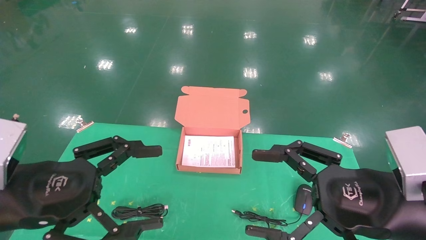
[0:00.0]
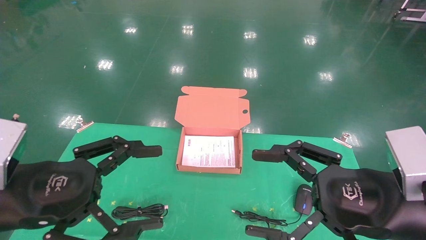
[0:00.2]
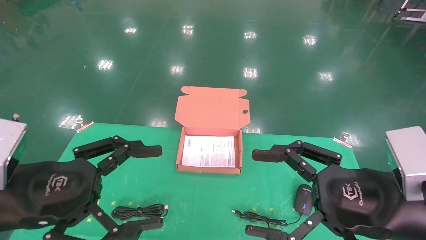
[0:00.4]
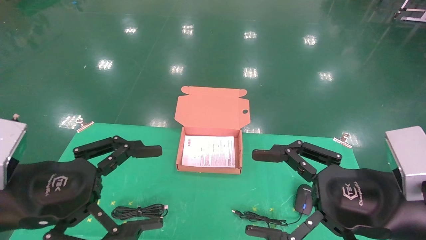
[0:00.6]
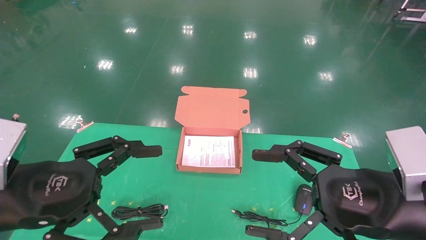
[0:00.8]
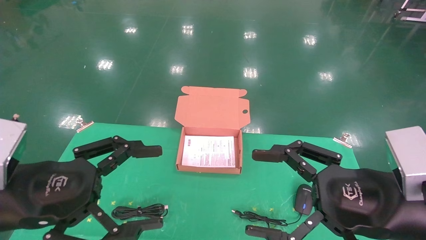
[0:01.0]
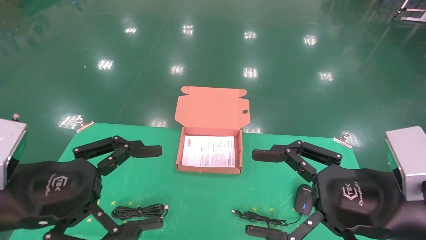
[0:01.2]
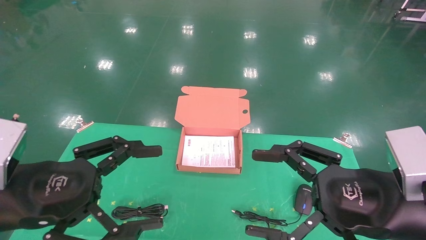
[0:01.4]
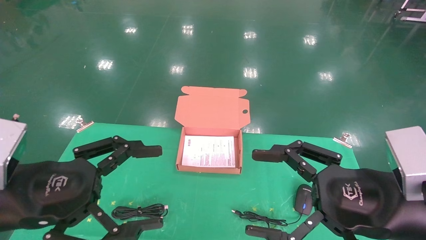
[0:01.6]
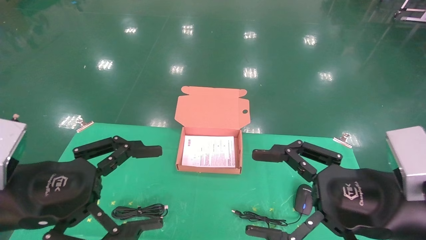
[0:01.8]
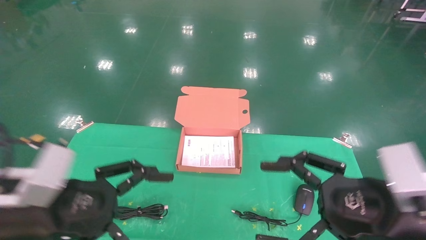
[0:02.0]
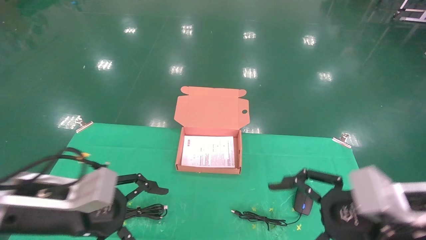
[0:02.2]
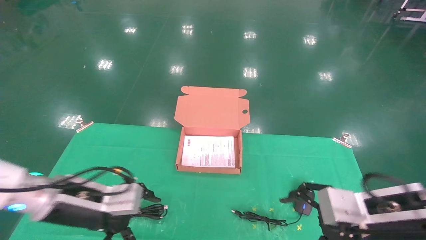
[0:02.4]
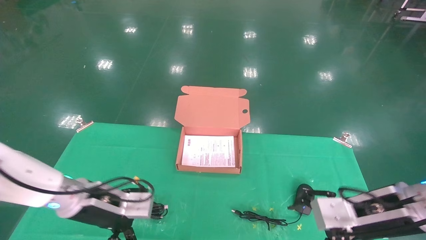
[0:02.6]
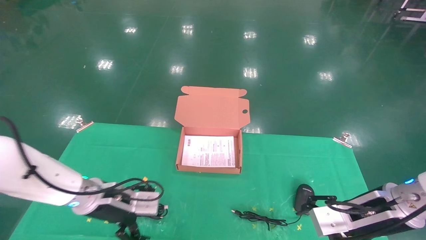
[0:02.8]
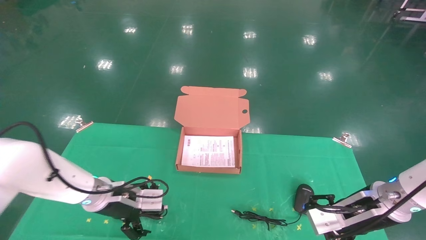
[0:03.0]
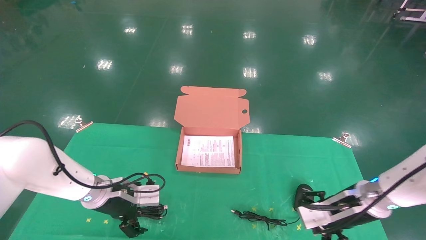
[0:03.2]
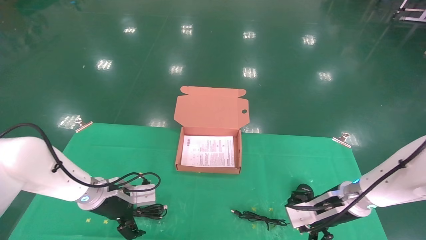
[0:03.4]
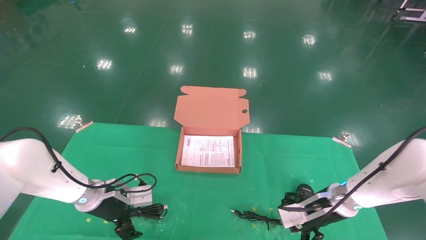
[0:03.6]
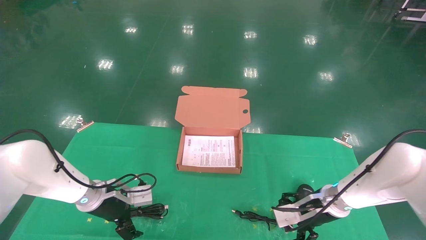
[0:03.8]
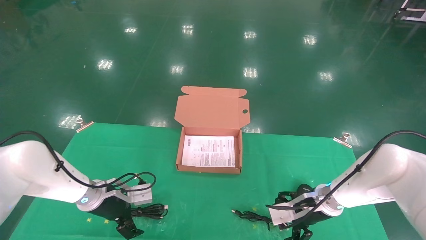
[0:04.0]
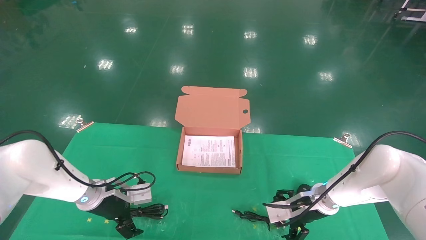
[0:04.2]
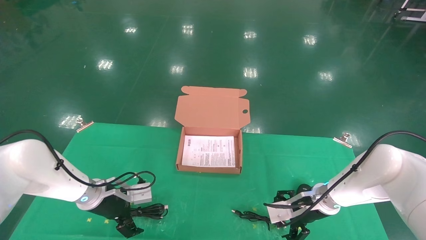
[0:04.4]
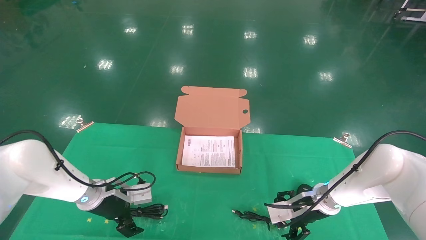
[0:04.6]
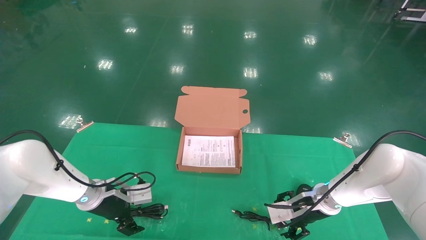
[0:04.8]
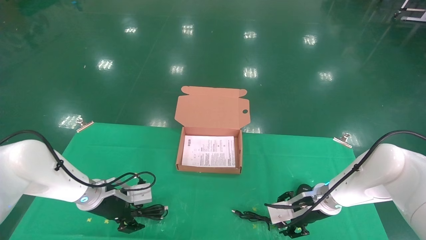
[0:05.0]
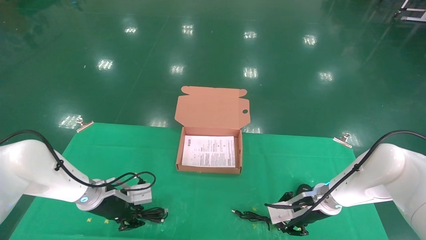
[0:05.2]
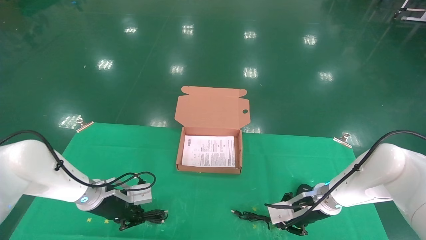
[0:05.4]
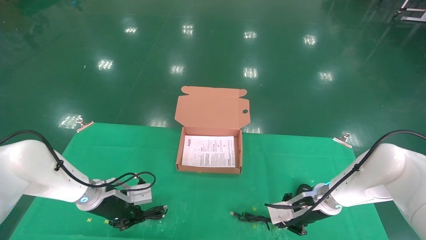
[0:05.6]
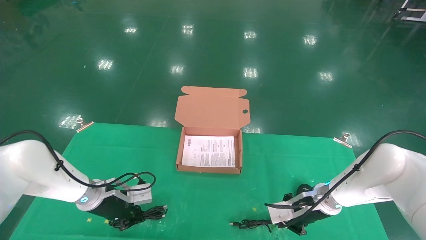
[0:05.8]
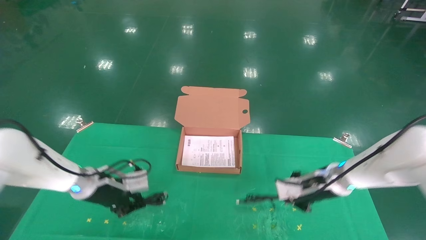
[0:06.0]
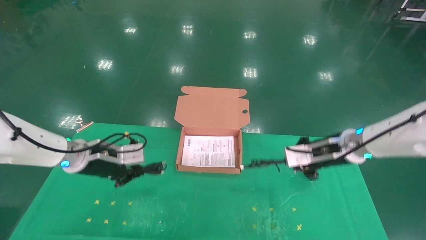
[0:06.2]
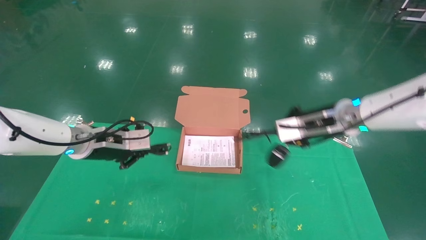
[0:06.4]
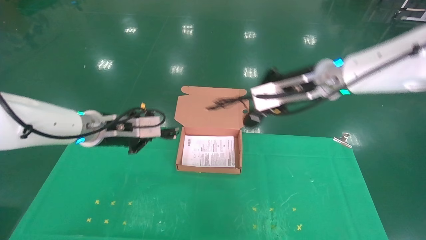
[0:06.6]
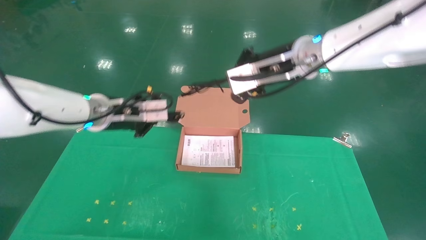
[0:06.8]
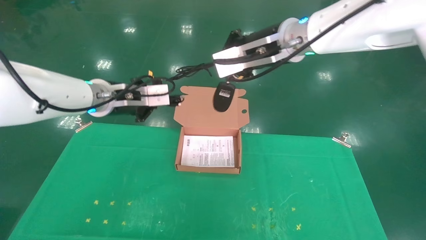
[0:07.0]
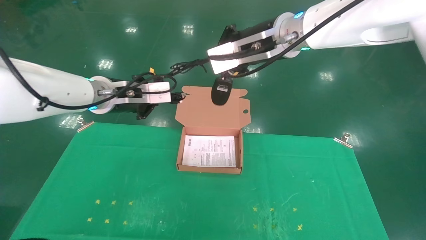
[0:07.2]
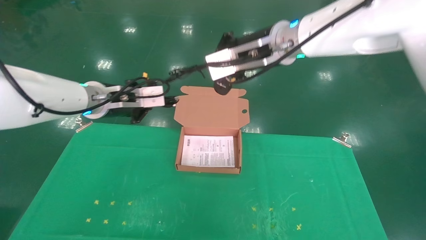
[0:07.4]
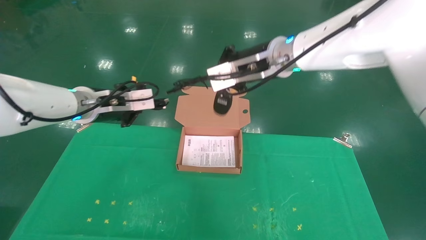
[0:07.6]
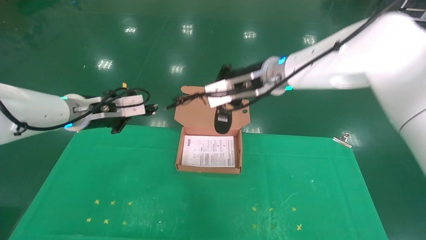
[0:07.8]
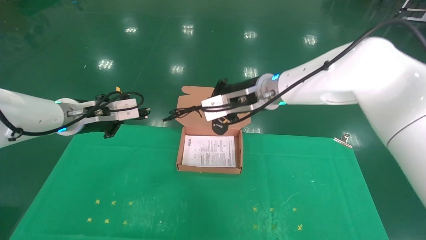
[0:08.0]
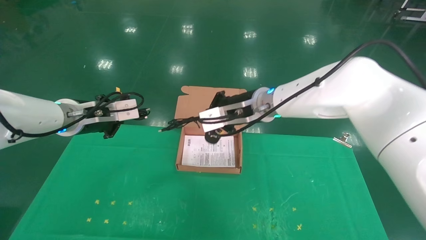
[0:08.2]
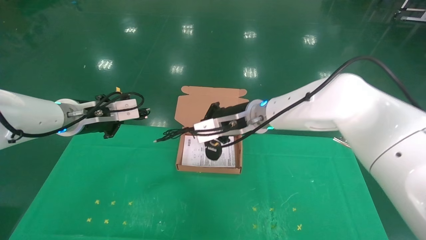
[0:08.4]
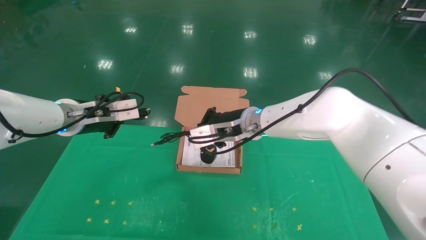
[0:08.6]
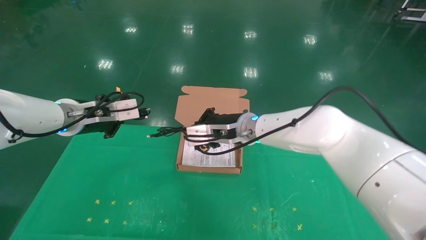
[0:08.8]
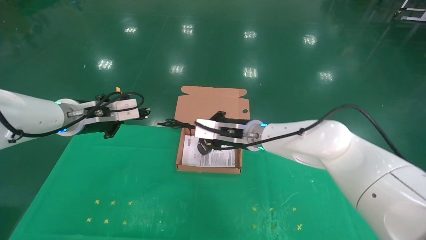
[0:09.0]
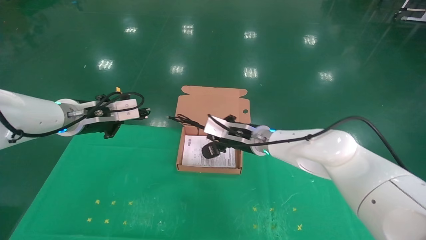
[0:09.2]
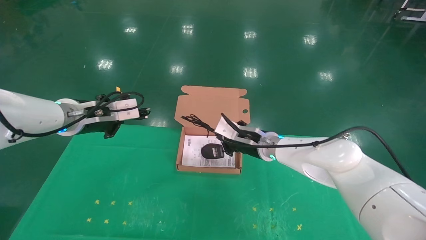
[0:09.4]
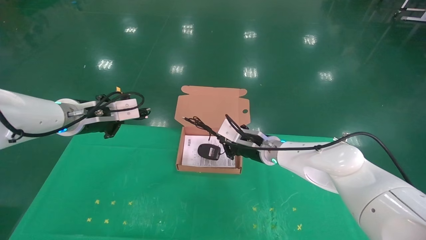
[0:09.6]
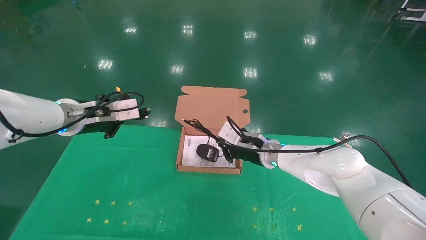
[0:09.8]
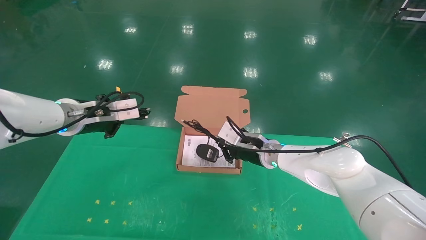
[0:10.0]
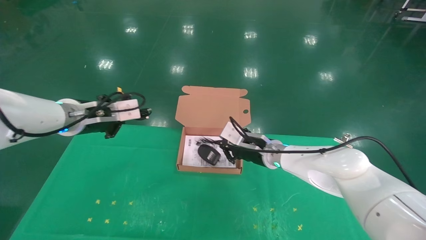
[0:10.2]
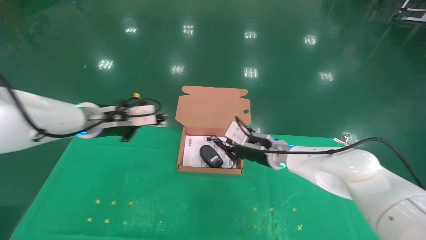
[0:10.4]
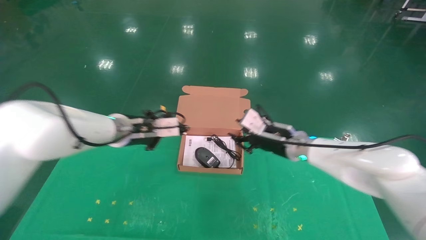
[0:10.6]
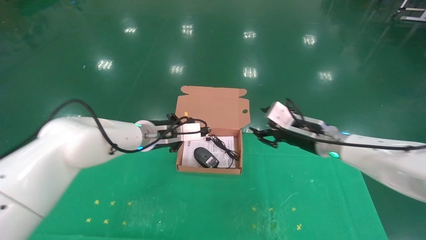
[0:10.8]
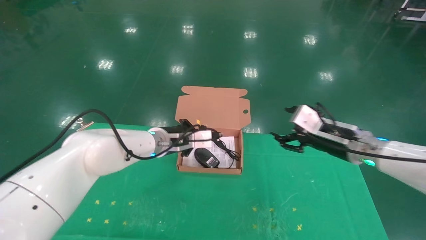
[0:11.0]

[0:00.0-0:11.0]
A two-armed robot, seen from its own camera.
Task of the whole recording: grasp data cable left put into box grasp mouse right put into box.
Step, 0:01.0 to 0:06.4: Grab and pick up both the mouse and power cord from the accessory packaging area at the same time.
0:00.0 to 0:01.6: Both grippers stay put.
0:01.6 to 0:03.2: The grippers both shift forward and downward by some 25 cm.
0:03.2 to 0:04.8: The right gripper goes some 5 cm forward.
0:04.8 to 0:06.2: Both grippers travel together upward, approximately 10 cm. The right gripper closes its fingers. The left gripper closes its fingers.
0:06.2 to 0:07.8: The left gripper travels upward by some 10 cm; the right gripper shifts about 20 cm to the left and upward.
0:07.8 to 0:09.4: The right gripper goes approximately 15 cm downward.
0:09.4 to 0:11.0: The left gripper moves to the right, downward and forward, approximately 20 cm. The right gripper is displaced to the right and backward by roughly 20 cm, and opens.

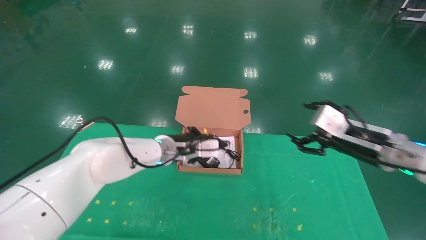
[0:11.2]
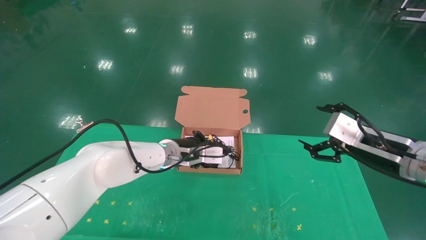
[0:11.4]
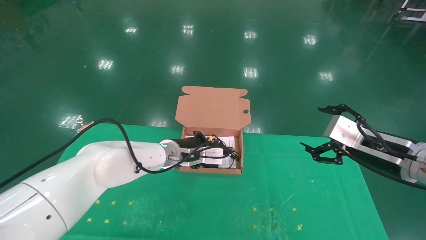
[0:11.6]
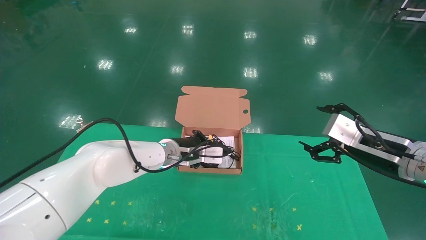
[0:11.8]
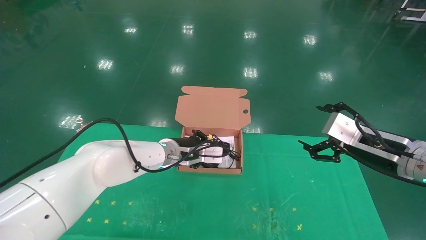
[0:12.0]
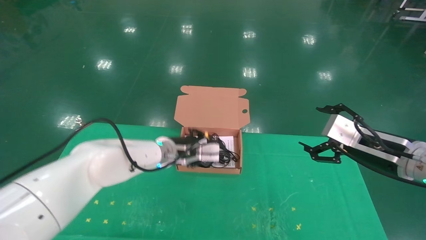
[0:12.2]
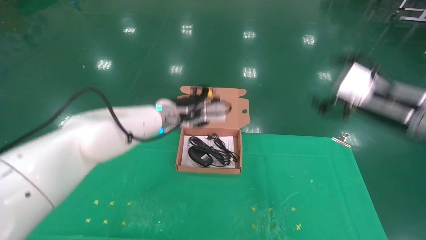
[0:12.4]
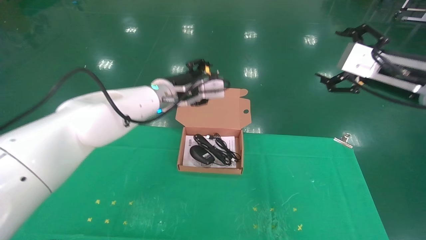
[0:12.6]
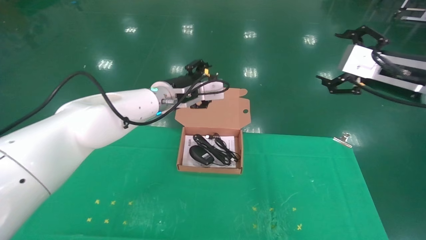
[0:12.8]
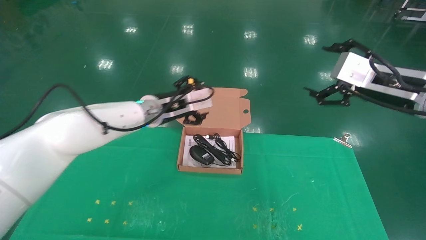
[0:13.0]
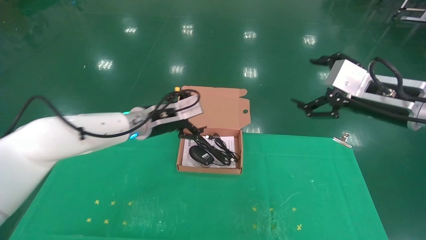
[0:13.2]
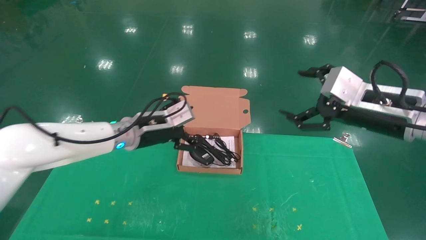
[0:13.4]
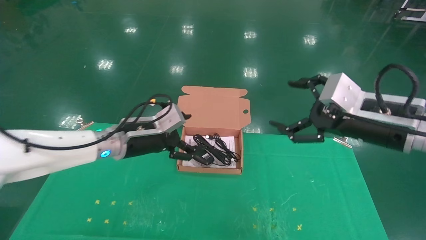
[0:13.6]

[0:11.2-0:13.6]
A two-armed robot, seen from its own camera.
Task of the whole recording: grasp data cable left put into box grasp mouse right put into box.
0:11.2 to 0:12.4: Both grippers move upward, roughly 10 cm. The left gripper opens up.
0:12.4 to 0:13.6: The right gripper ends up approximately 5 cm from where it was. The left gripper moves to the left, backward and downward, about 10 cm, and opens up.

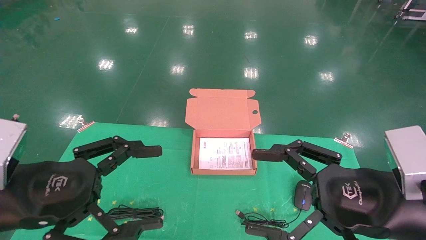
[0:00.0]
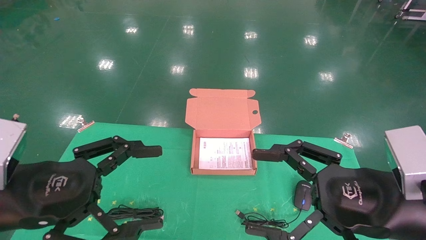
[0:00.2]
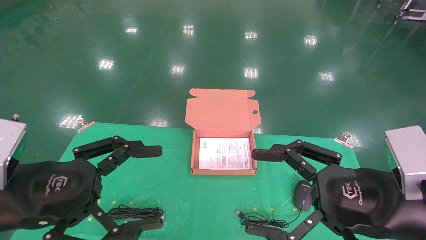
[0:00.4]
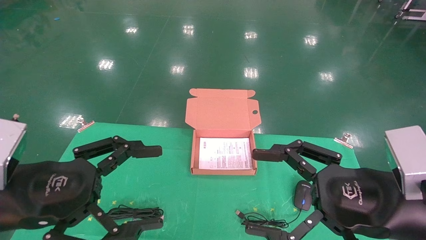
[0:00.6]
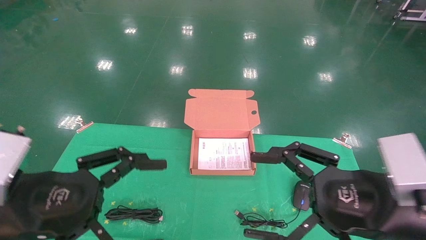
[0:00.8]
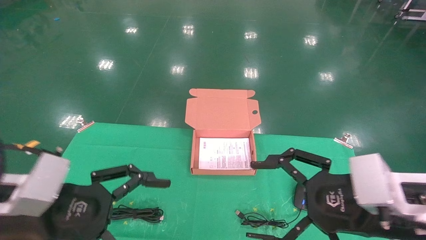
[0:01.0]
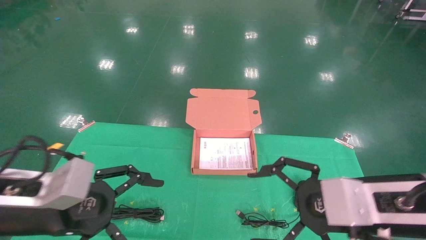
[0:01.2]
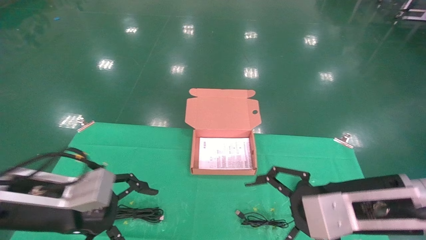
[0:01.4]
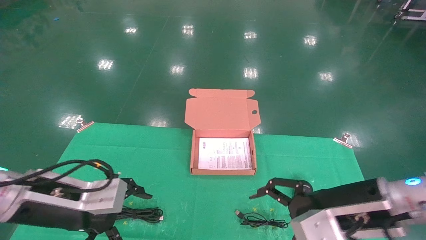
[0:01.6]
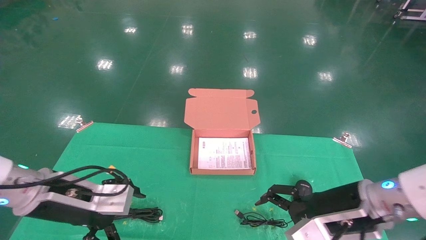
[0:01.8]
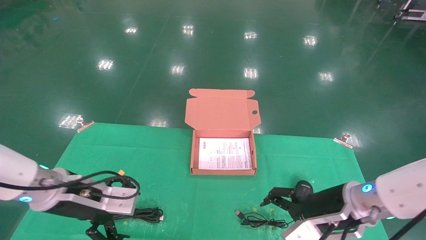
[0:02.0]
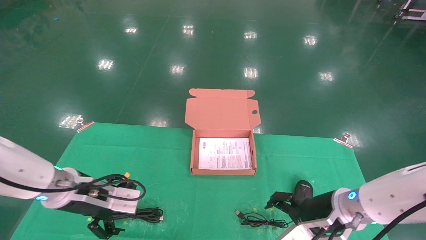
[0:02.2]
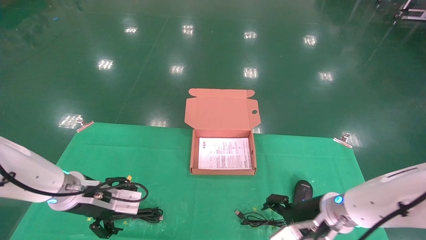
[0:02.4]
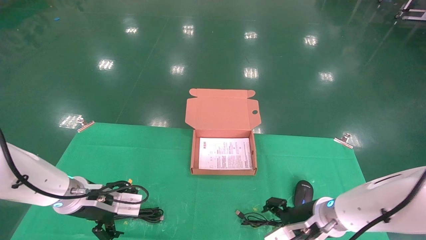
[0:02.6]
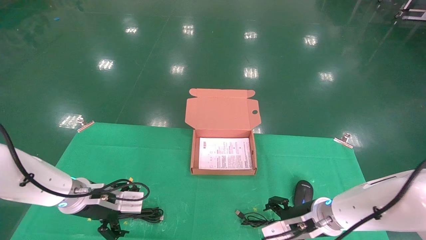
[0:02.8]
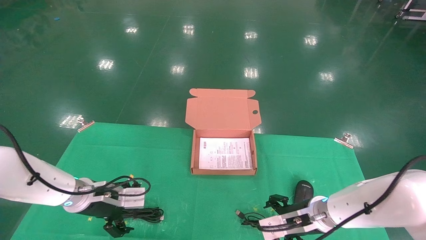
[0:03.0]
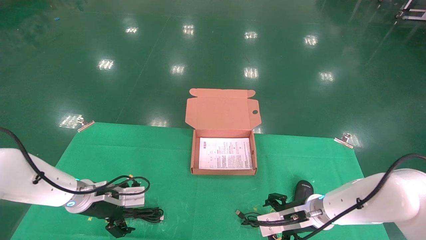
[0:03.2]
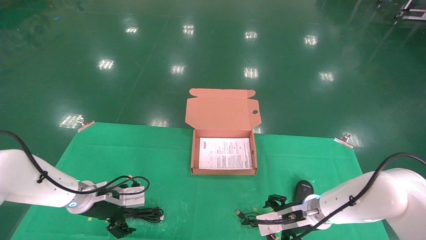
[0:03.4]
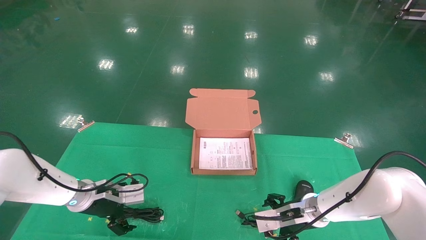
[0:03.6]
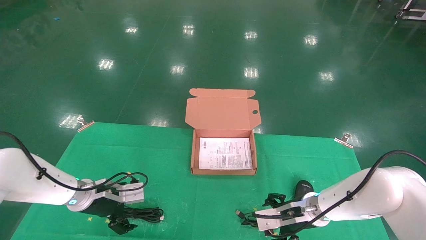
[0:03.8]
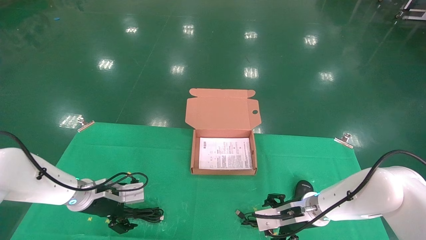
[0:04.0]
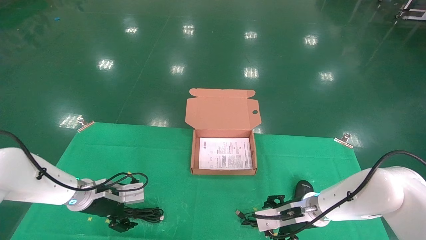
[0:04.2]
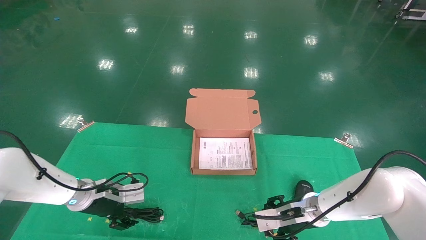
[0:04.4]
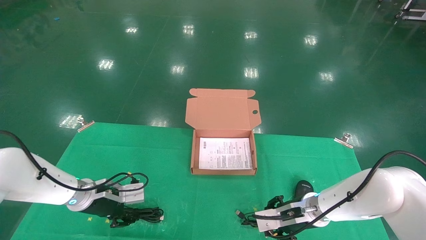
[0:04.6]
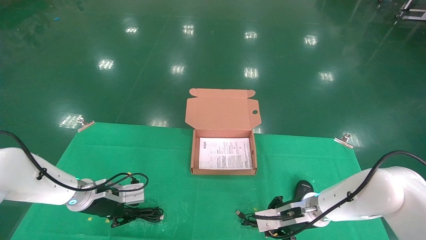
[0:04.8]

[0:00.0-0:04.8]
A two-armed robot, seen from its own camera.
Task of the whole recording: grasp data cable left put into box grasp mouse right put into box.
0:00.0 to 0:01.6: Both grippers move forward, roughly 5 cm.
0:01.6 to 0:03.2: The right gripper is displaced downward and forward by approximately 20 cm. The left gripper moves forward and downward, about 15 cm.
0:03.2 to 0:04.8: The right gripper closes its fingers, while the left gripper closes up.
